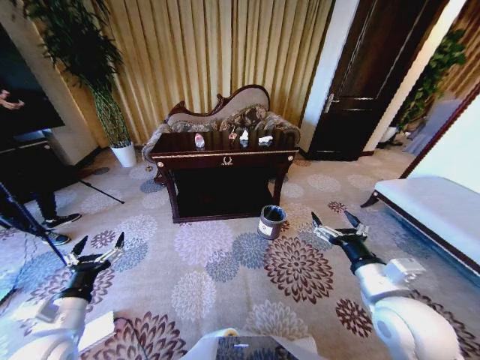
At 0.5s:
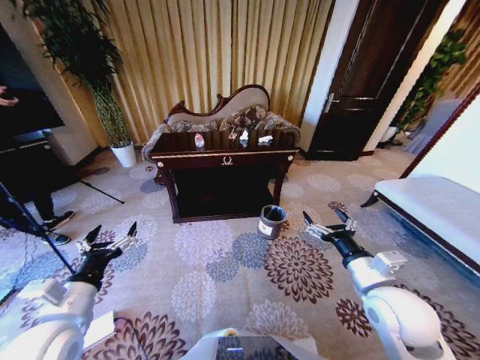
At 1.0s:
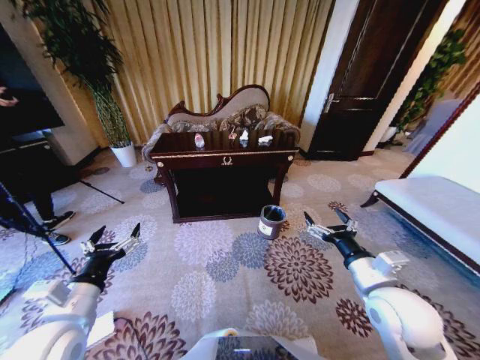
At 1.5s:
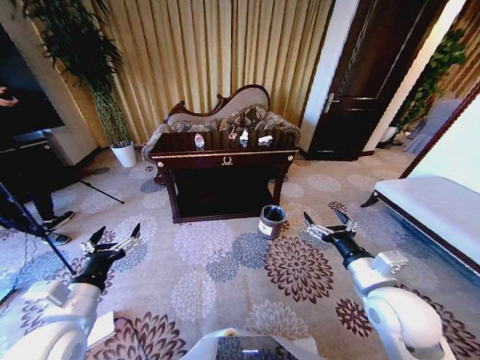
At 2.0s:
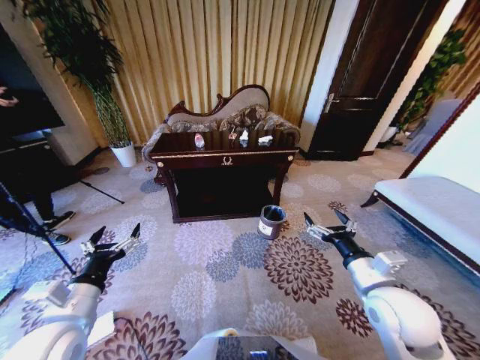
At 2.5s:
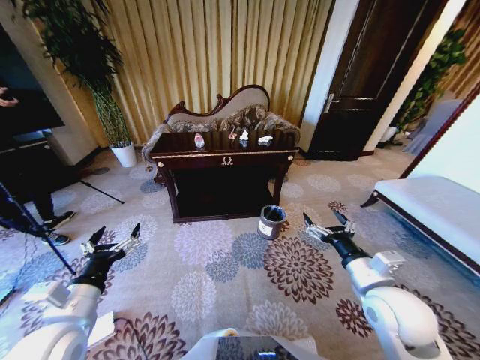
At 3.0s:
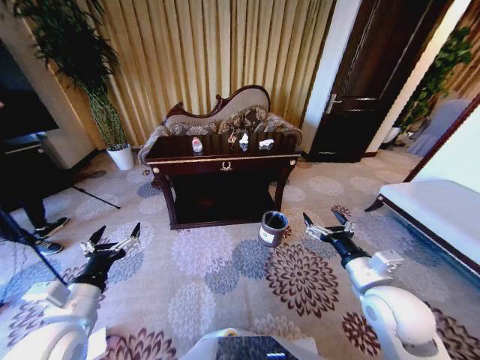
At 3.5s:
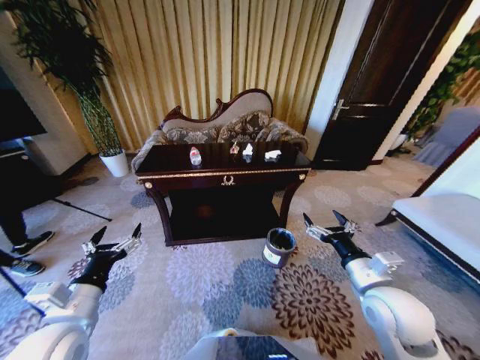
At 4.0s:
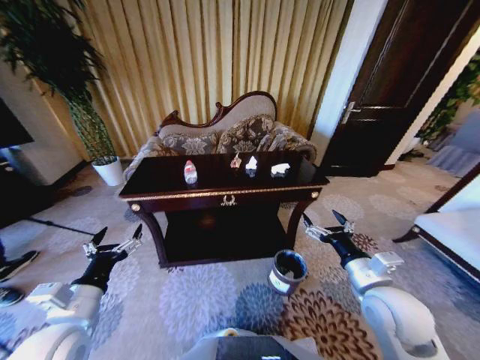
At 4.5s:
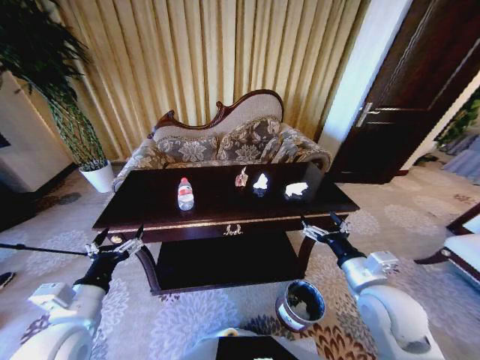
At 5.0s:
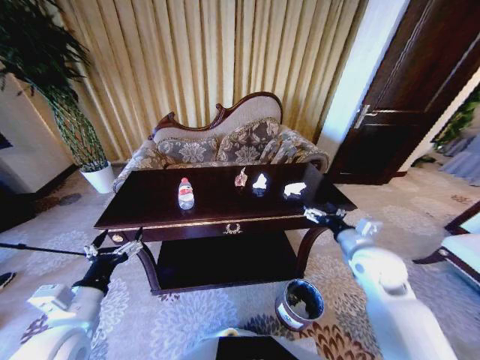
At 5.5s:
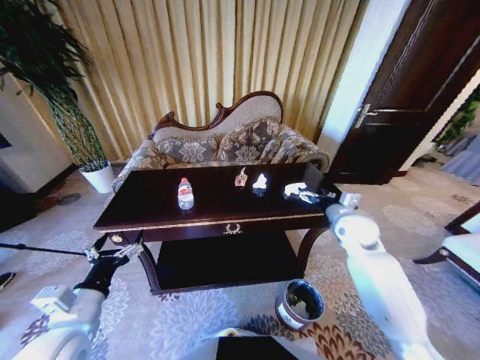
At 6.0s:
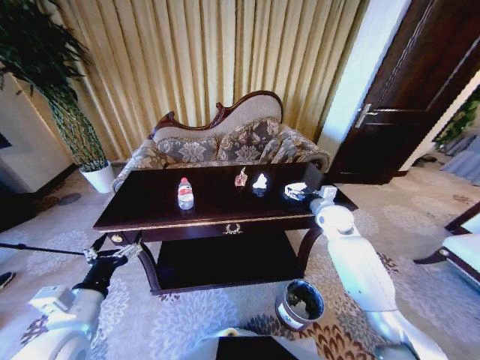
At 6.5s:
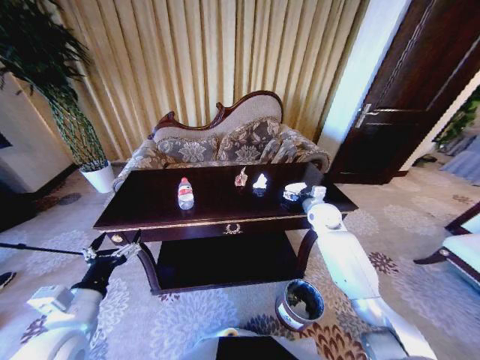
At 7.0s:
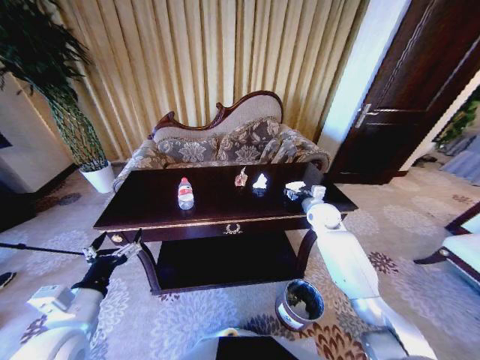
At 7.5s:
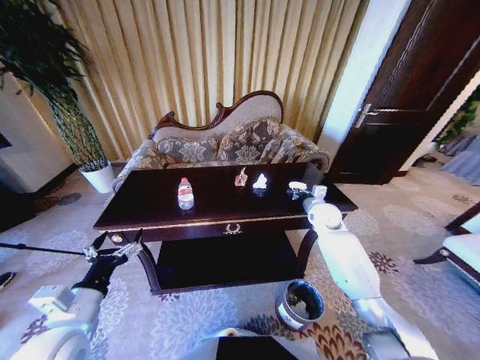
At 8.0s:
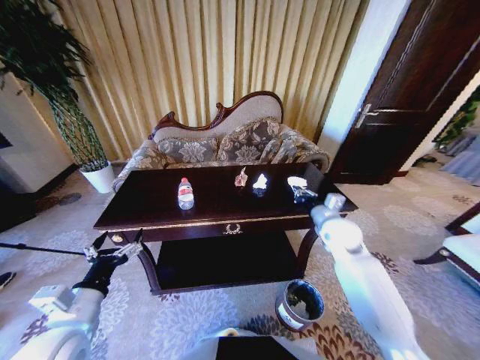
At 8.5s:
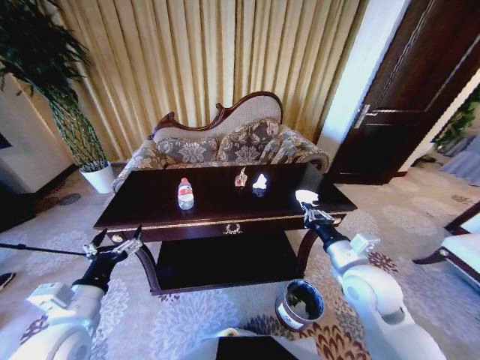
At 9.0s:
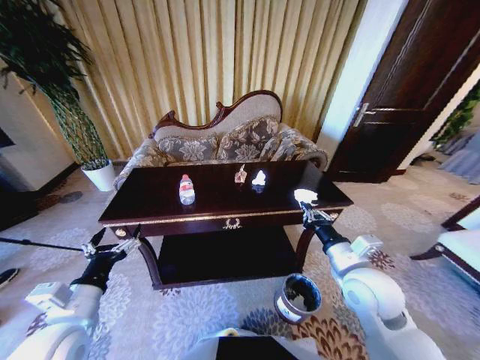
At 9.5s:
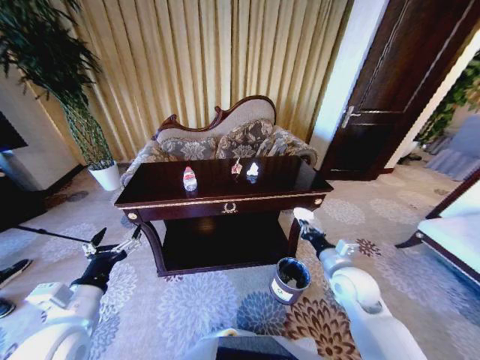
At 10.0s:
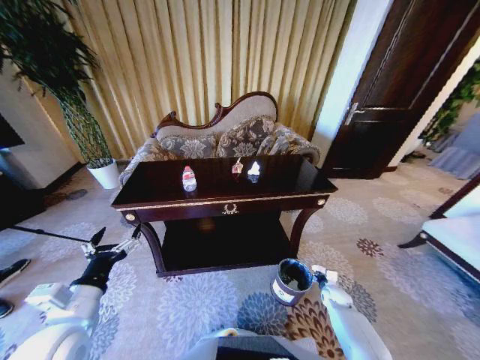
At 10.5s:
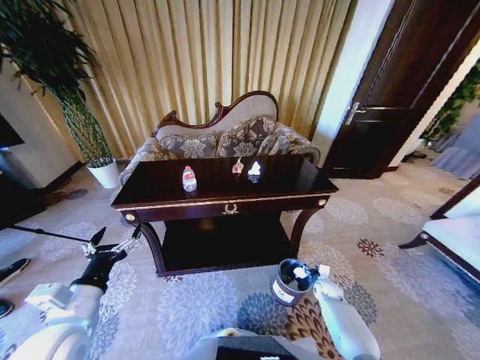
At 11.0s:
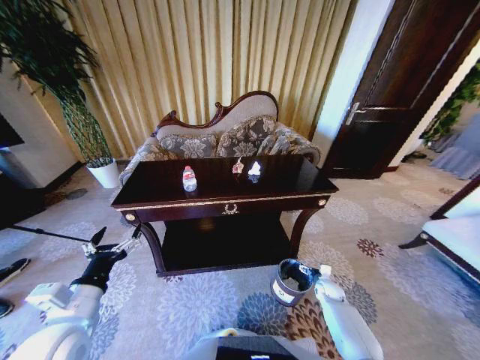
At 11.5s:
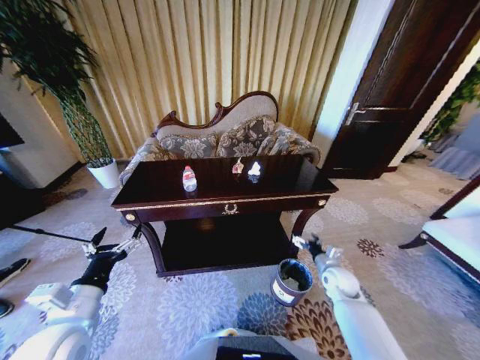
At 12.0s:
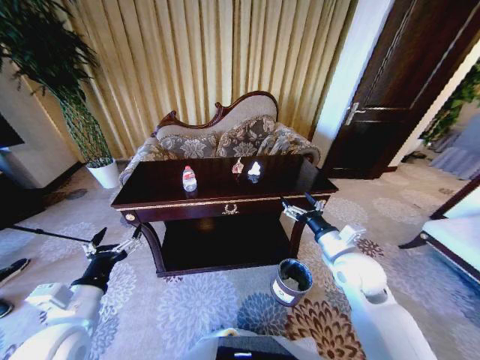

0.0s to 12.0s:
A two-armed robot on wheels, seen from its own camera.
Task of the whole recording: Move to the front of the table and place the trash on the table into the trash bin.
4.0s to 6.0s: The right gripper travels forward by about 25 cm.
6.0s to 8.0s: The right gripper goes some 10 cm backward, and closes up.
8.0s to 10.0s: The right gripper goes roughly 35 cm downward.
10.0s to 12.0s: The right gripper moves upward, roughly 35 cm, and opens.

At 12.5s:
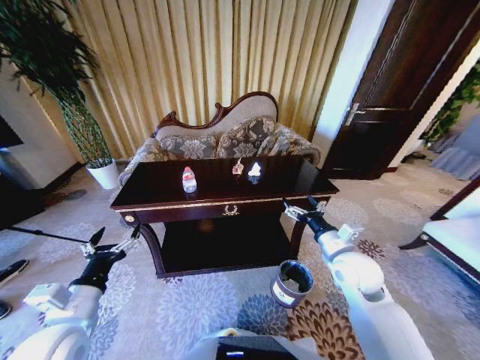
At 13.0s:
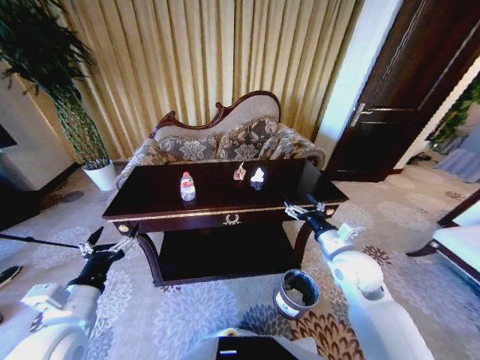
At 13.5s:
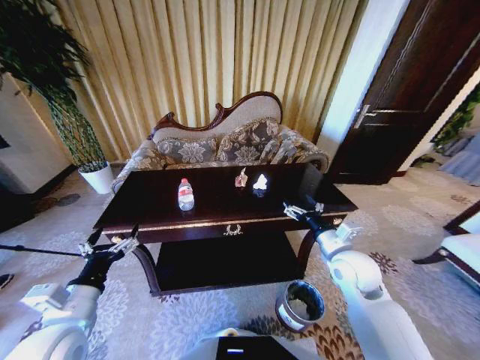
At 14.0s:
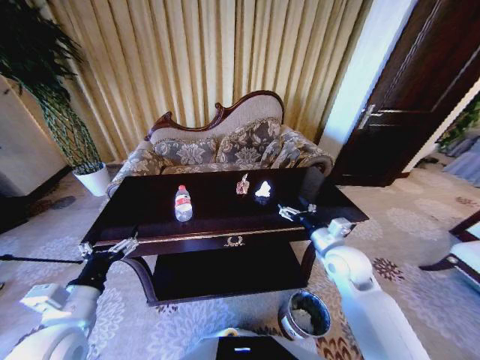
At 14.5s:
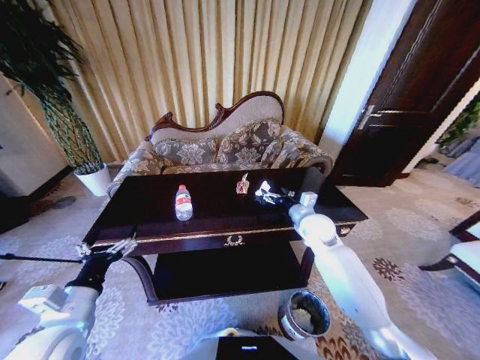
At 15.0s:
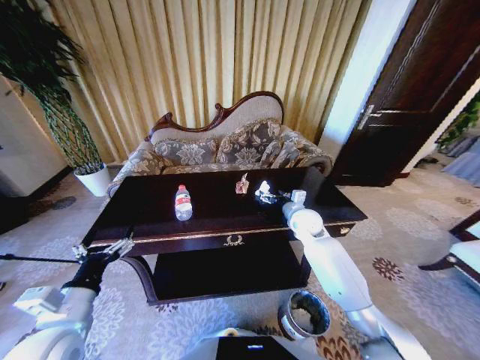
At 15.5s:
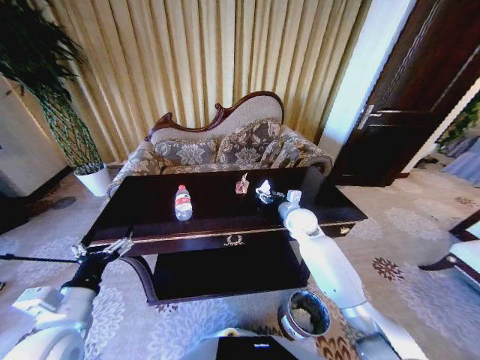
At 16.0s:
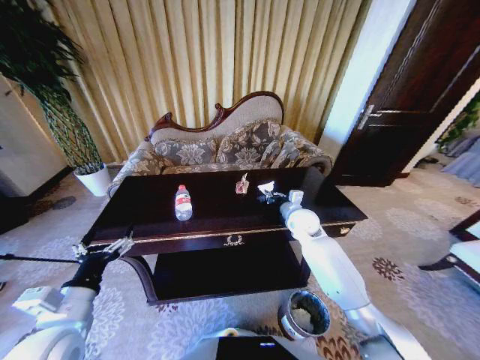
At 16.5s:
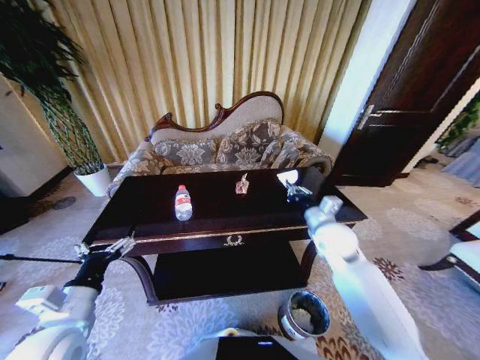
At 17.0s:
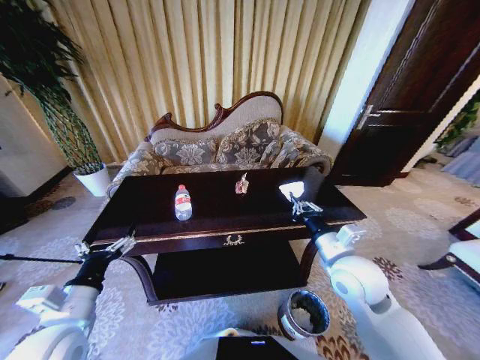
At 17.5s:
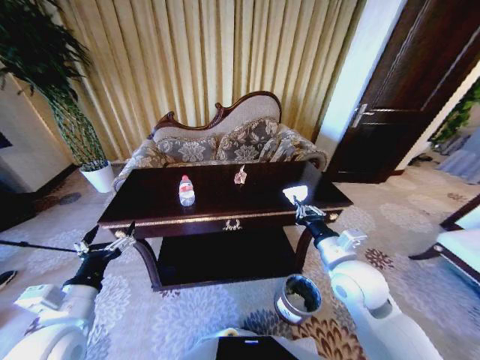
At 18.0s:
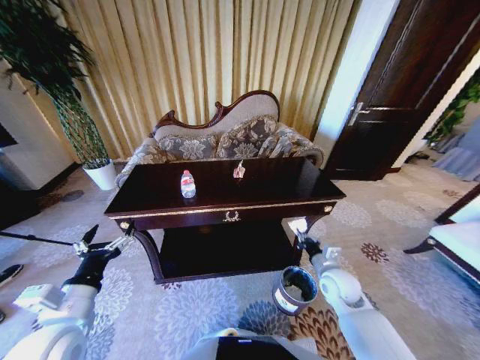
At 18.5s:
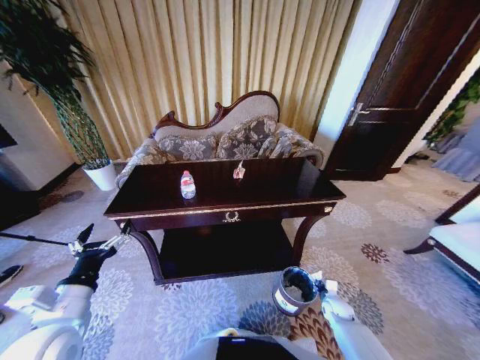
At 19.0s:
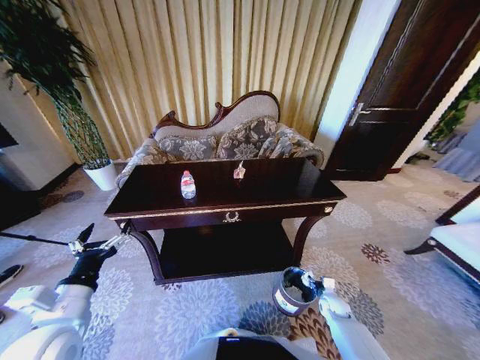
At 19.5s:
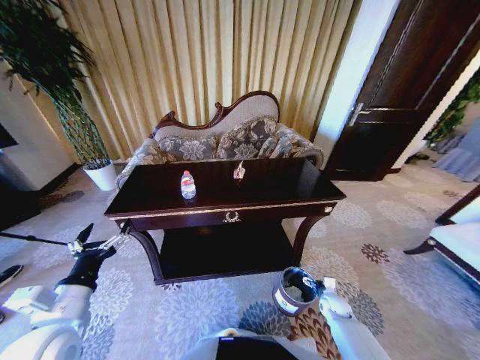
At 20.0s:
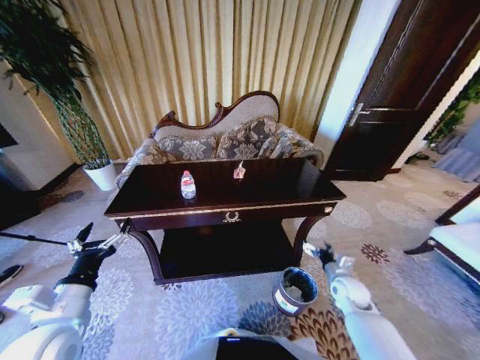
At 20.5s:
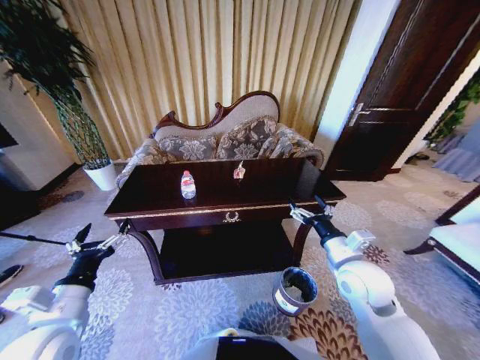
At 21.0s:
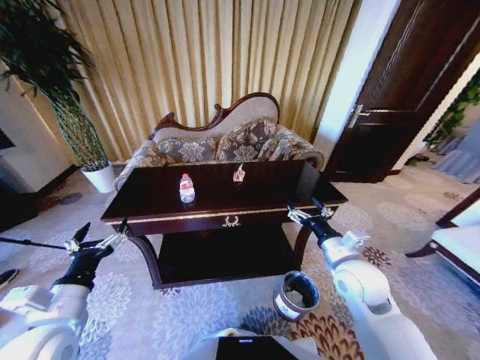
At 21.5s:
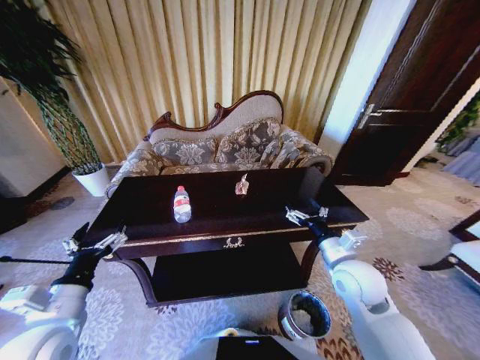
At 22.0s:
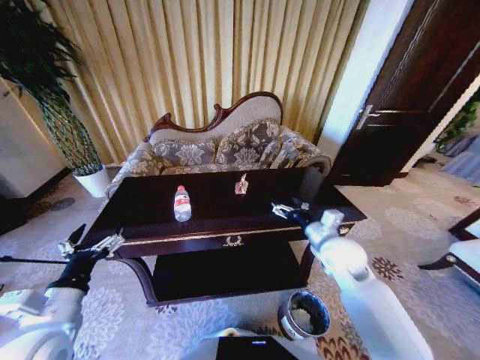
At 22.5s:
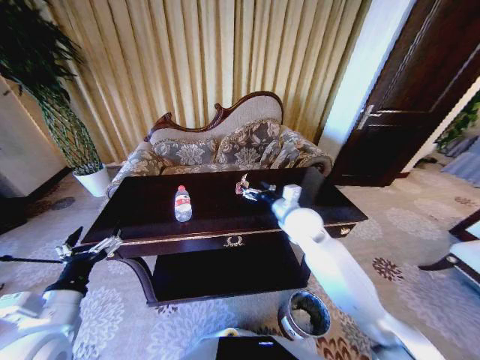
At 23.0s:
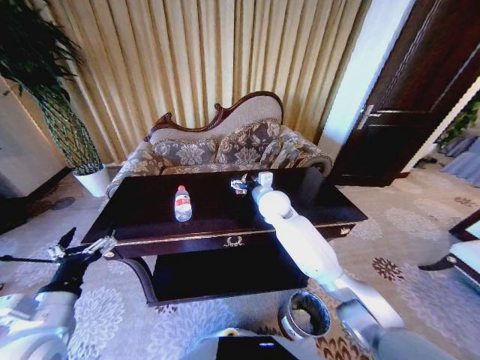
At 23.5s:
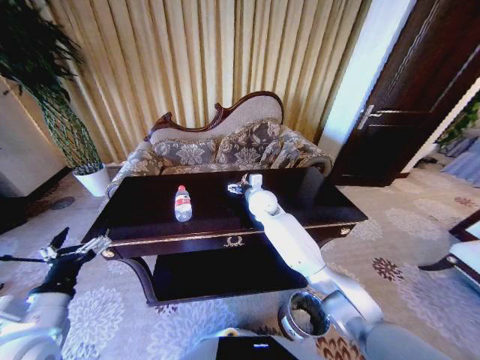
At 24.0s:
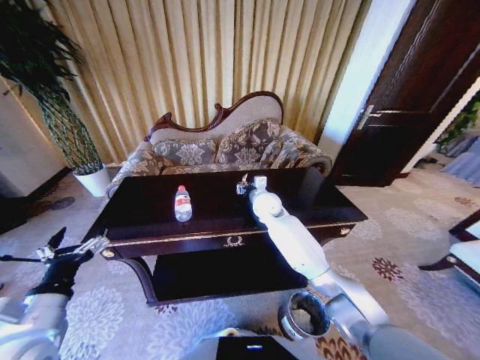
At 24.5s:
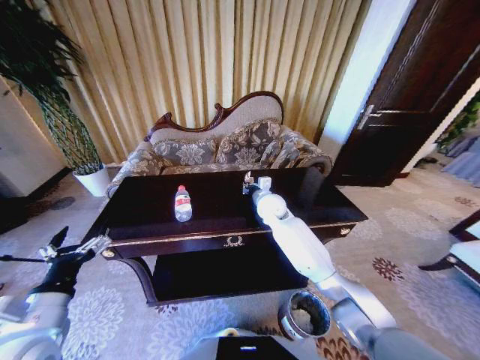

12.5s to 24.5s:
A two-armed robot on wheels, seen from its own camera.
Task of the whole recording: Move to the front of the table and place the trash on the table into the trash bin.
12.5s to 14.5s: The right gripper shifts roughly 15 cm forward.
14.5s to 16.5s: The right gripper goes some 5 cm backward, and closes its fingers.
16.5s to 18.5s: The right gripper moves downward, some 35 cm.
18.5s to 20.5s: The right gripper moves upward, about 35 cm, and opens its fingers.
20.5s to 22.5s: The right gripper shifts roughly 20 cm forward and to the left.
22.5s to 24.5s: The right gripper shifts about 10 cm forward and to the left, and closes.

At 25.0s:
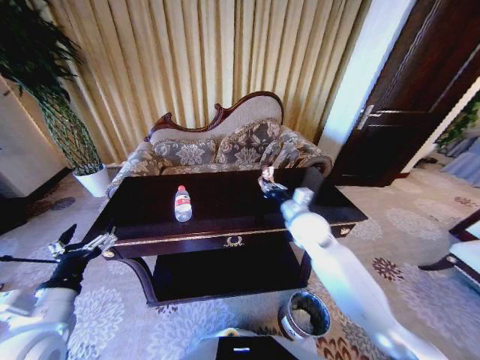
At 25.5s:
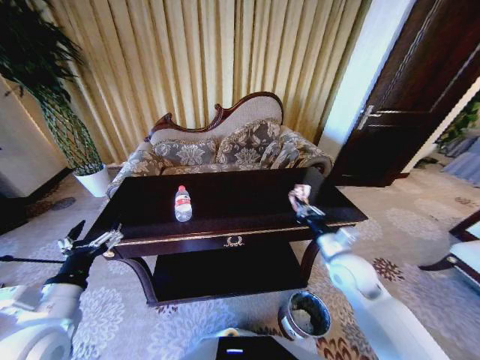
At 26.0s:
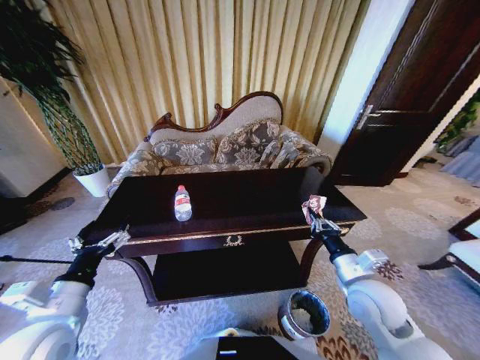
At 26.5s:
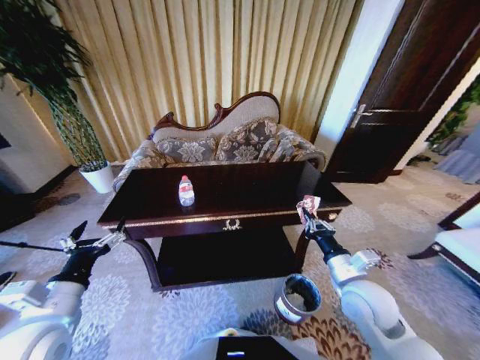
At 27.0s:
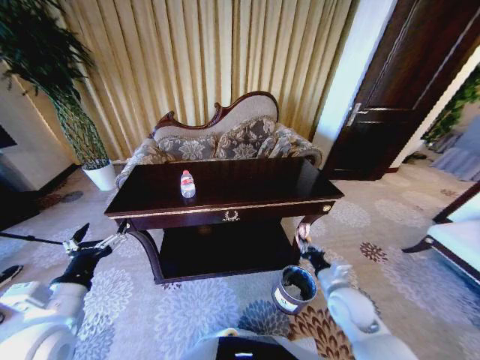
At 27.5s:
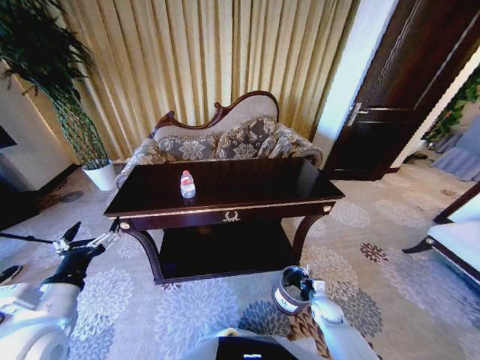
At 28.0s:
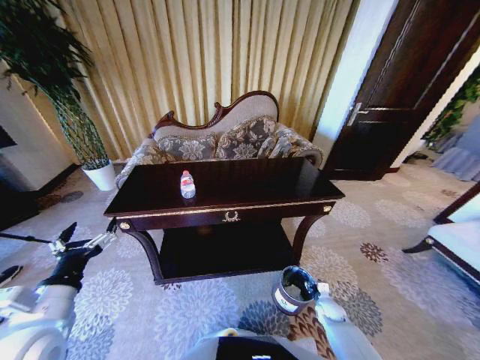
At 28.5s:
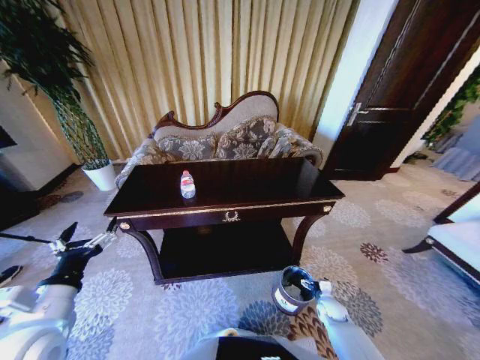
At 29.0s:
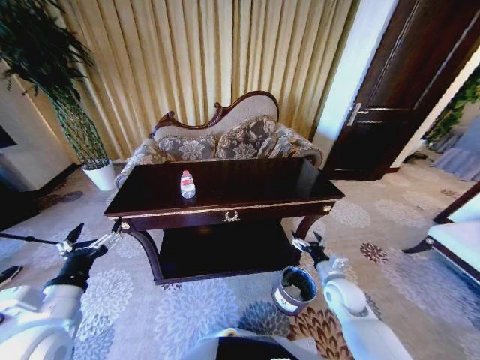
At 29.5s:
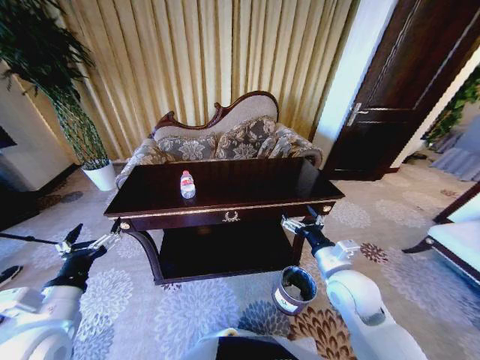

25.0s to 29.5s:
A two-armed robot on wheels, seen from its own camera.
Task of the whole recording: Move to the front of the table and place the trash on the table into the trash bin.
25.0s to 27.0s: The right gripper moves backward, downward and to the right, some 20 cm.
27.0s to 29.5s: The right gripper reaches roughly 25 cm downward, then returns, and opens up.
